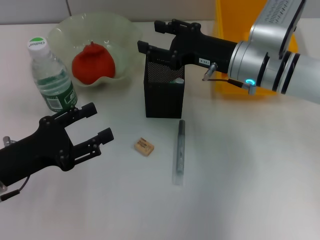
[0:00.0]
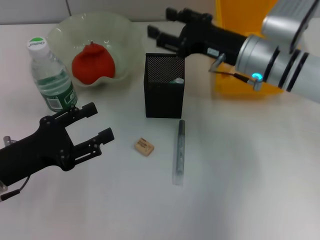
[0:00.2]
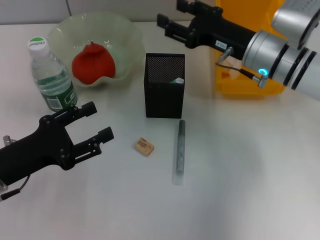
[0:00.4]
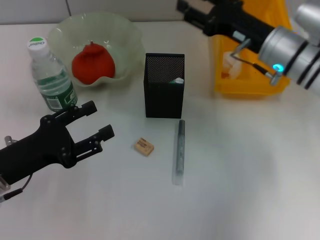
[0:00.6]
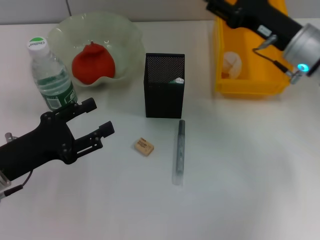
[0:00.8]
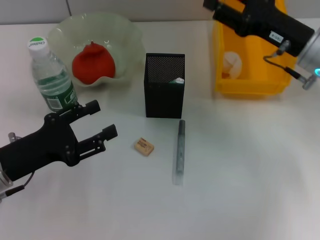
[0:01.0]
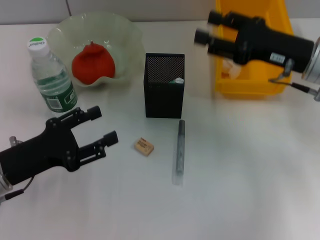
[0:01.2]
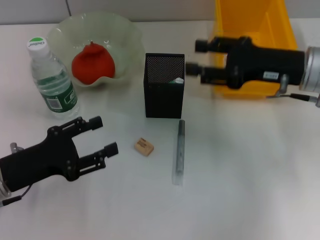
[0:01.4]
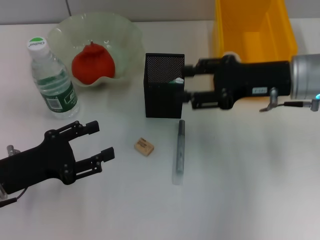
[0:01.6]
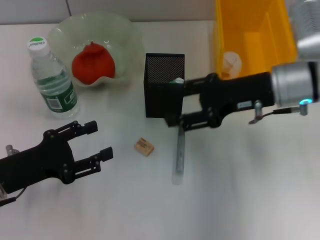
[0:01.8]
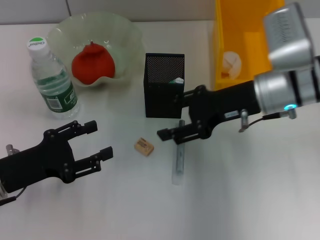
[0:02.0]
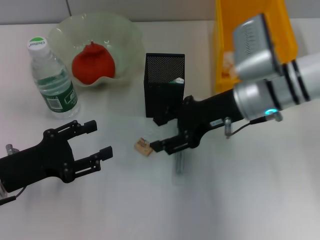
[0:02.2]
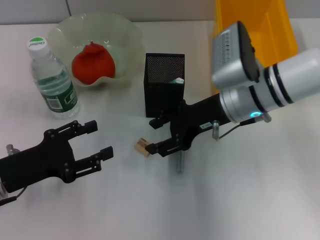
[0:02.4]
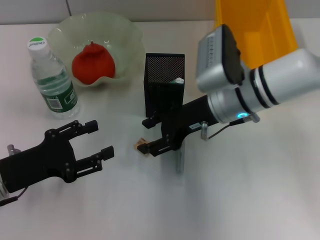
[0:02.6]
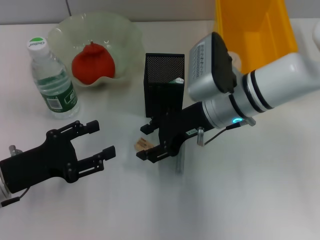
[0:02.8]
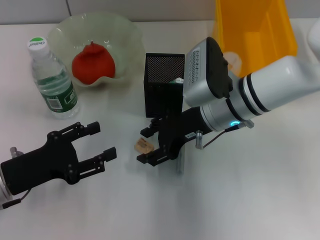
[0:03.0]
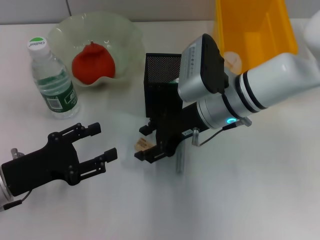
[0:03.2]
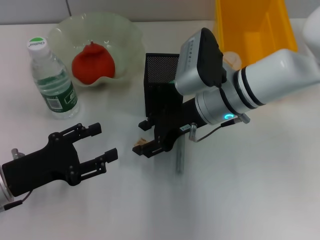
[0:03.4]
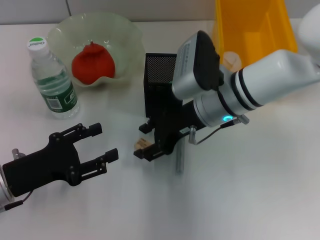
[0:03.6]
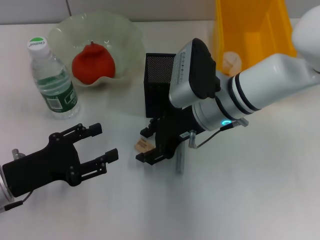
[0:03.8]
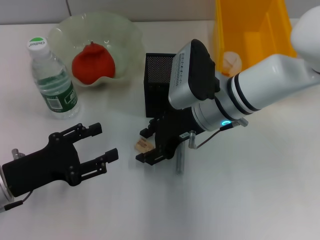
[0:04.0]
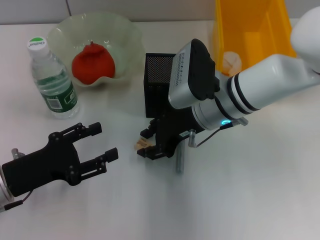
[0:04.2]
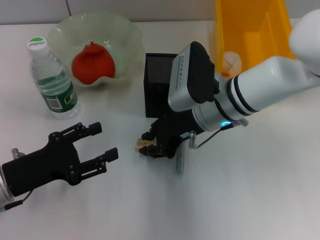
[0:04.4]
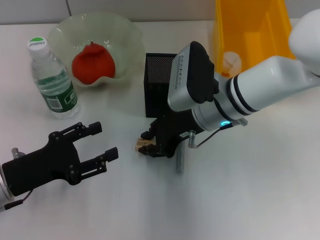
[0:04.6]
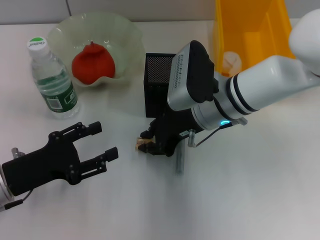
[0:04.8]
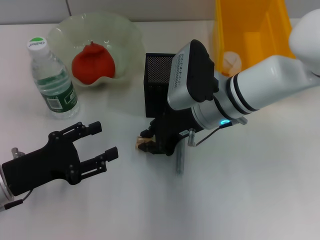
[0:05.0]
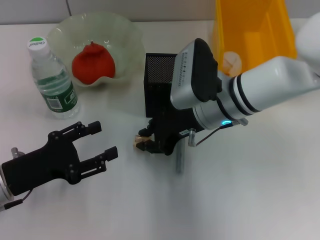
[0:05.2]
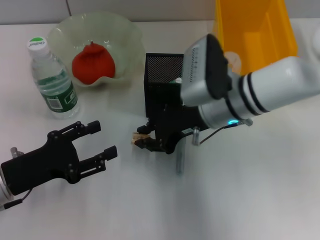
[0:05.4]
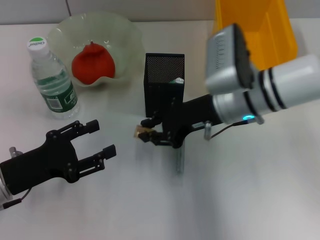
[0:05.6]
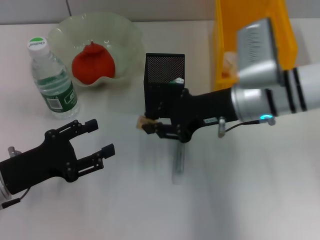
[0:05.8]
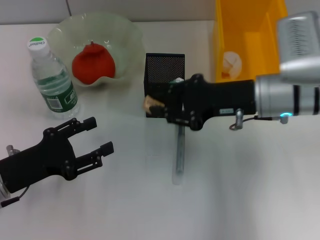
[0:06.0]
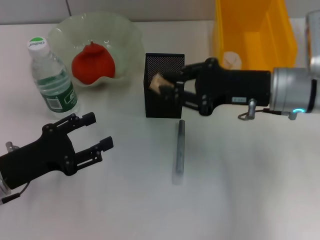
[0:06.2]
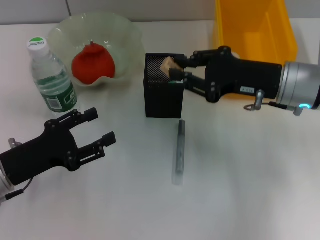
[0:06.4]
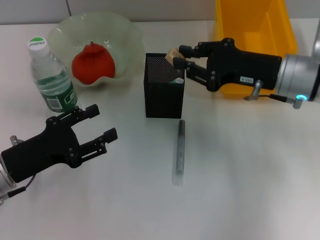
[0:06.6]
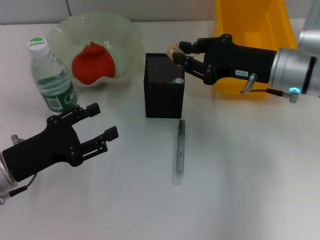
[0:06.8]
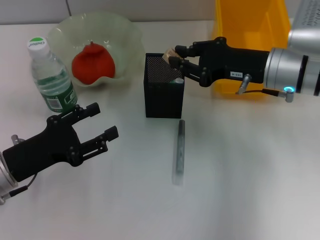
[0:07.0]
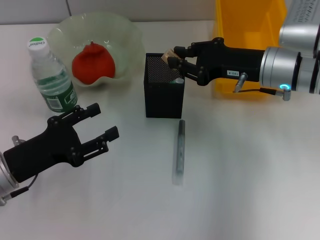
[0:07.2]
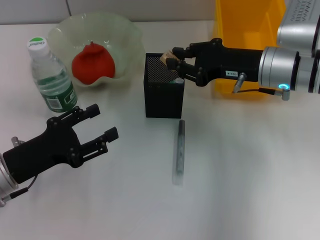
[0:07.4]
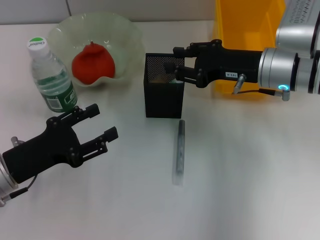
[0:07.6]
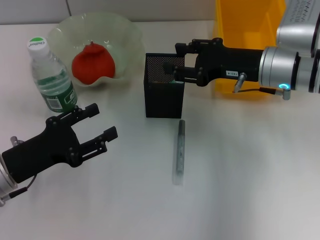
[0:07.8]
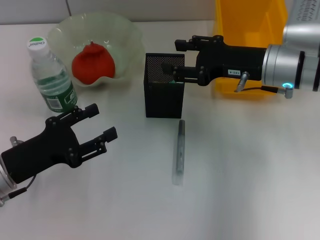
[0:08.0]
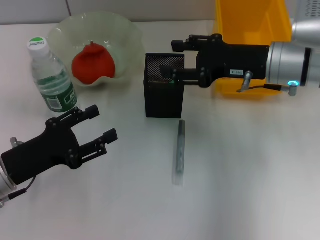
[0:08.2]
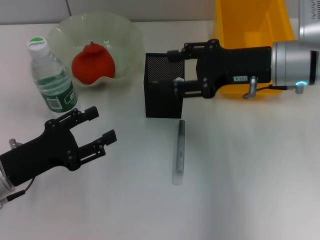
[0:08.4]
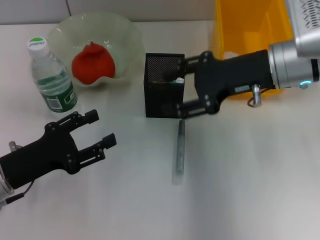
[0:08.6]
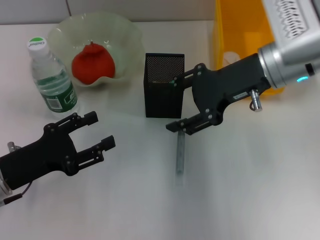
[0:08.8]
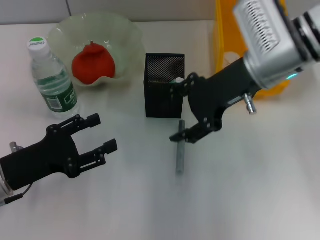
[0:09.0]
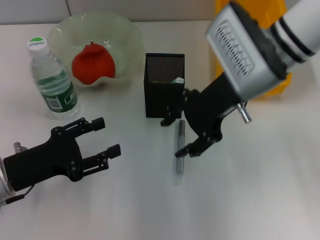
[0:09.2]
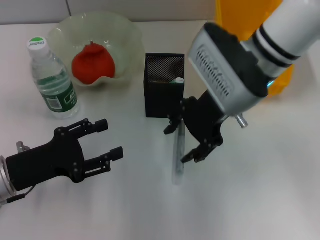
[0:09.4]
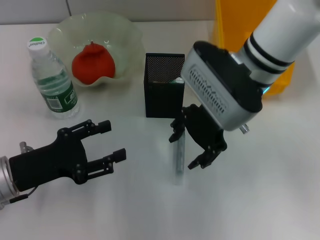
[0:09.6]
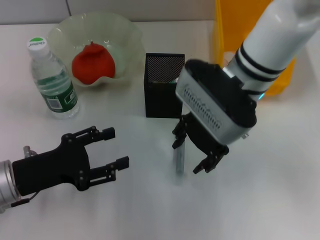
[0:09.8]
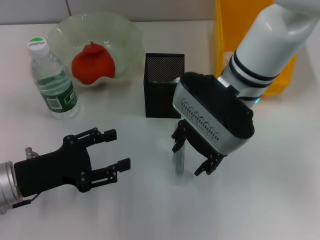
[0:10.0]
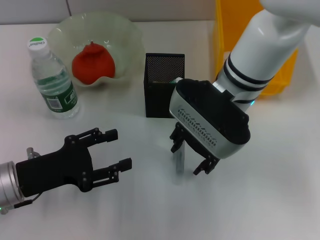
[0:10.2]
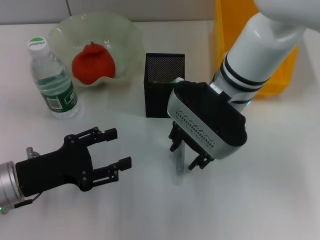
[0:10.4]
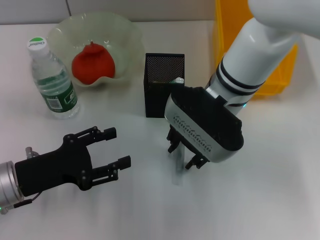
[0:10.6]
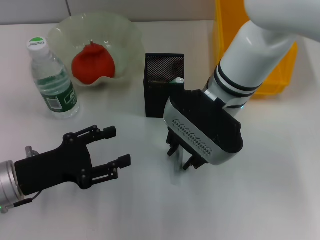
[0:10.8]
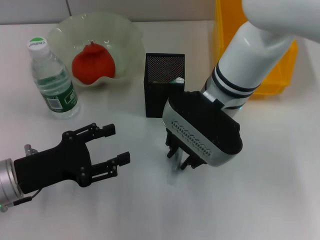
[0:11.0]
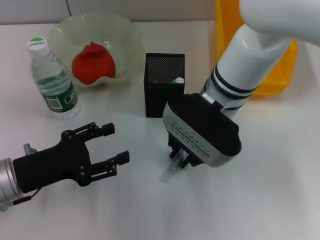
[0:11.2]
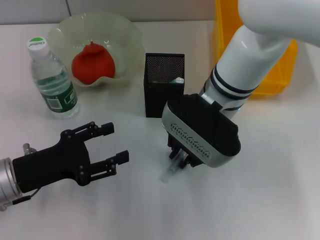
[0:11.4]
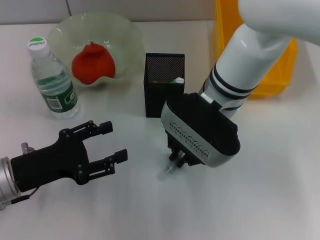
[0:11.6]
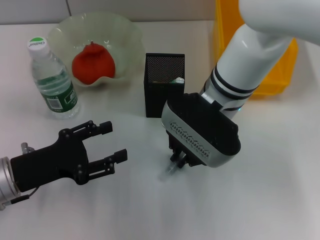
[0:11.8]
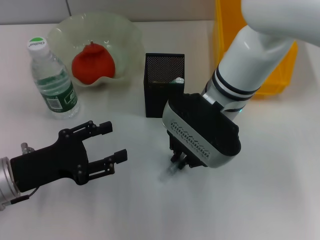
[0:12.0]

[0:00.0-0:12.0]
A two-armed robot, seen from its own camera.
Step, 0:00.0 to 0:04.4: Grab the eraser with the right hand.
Step, 0:04.6 to 0:08.2: Put the eraser into the pen holder with the right hand.
Step, 0:08.4 to 0:11.6: Grab the gray glue with the right hand.
0:00.0 to 0:01.6: The right gripper is displaced to the right by about 5 cm.
0:01.6 to 0:03.0: The right gripper goes about 10 cm to the left.
0:03.0 to 0:04.4: The grippers move only a little.
0:04.4 to 0:06.0: The right gripper travels to the right by approximately 10 cm.
0:06.0 to 0:07.6: The grippers move only a little.
0:07.6 to 0:09.0: The right gripper travels upward by about 5 cm, and opens its fingers.
0:09.0 to 0:10.4: The right gripper goes approximately 5 cm to the left.
0:10.4 to 0:12.0: The right gripper closes up.

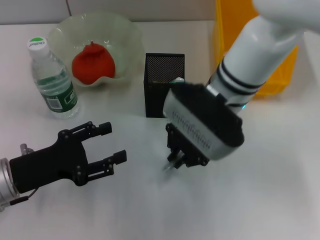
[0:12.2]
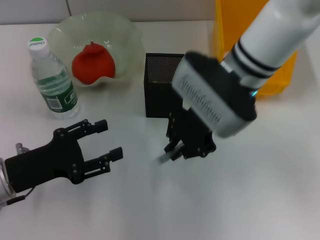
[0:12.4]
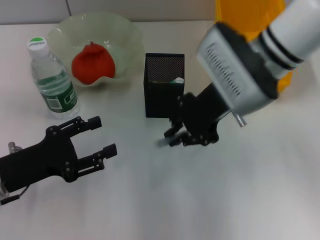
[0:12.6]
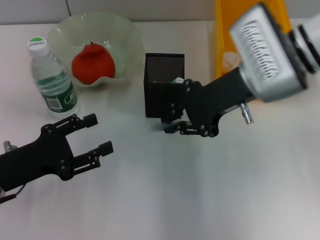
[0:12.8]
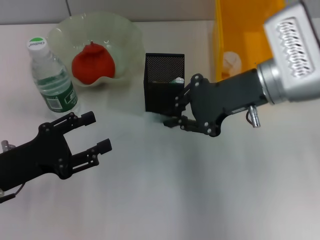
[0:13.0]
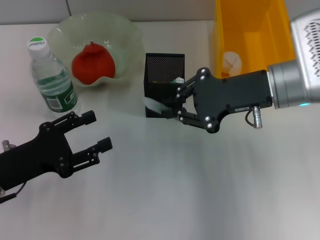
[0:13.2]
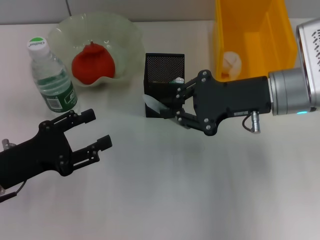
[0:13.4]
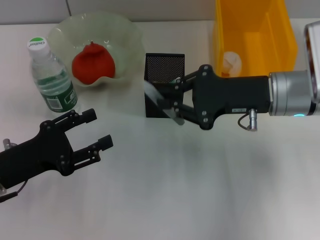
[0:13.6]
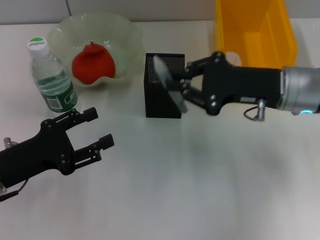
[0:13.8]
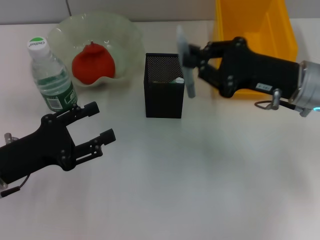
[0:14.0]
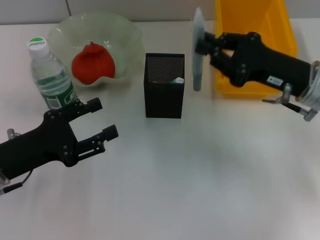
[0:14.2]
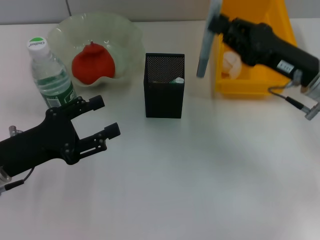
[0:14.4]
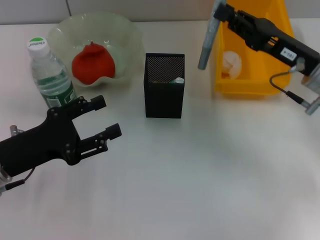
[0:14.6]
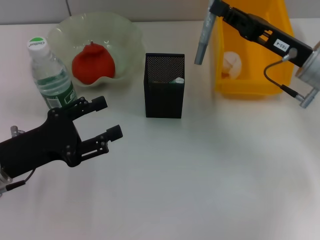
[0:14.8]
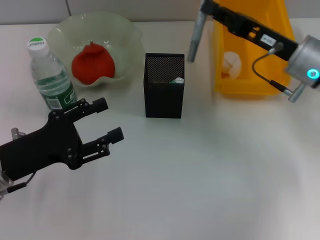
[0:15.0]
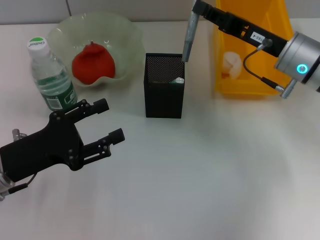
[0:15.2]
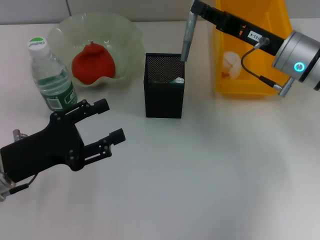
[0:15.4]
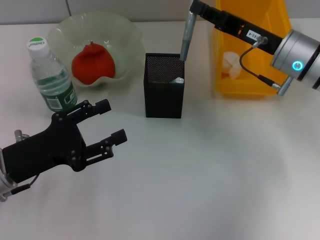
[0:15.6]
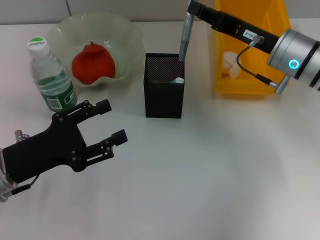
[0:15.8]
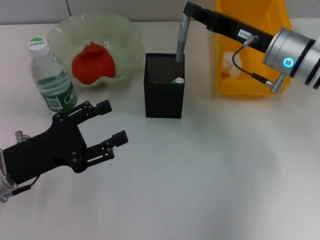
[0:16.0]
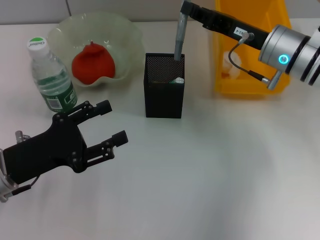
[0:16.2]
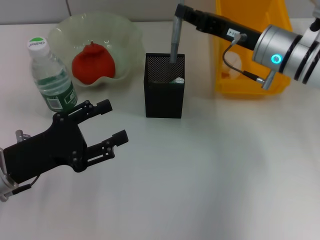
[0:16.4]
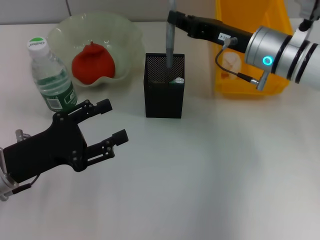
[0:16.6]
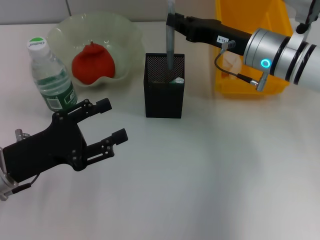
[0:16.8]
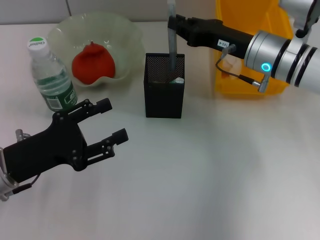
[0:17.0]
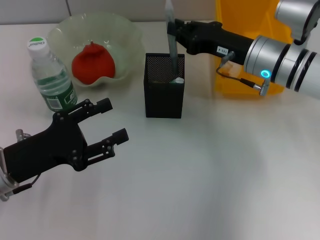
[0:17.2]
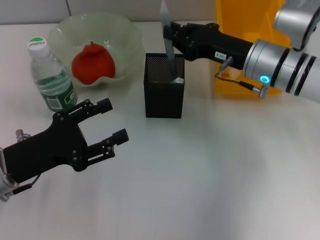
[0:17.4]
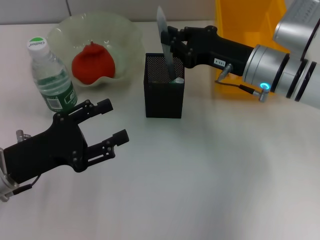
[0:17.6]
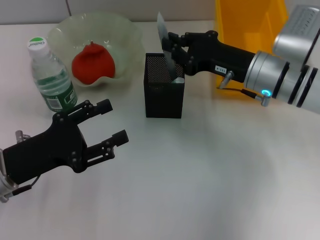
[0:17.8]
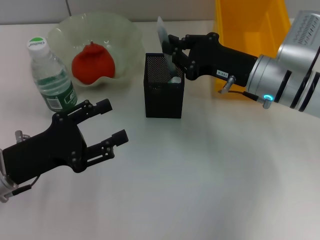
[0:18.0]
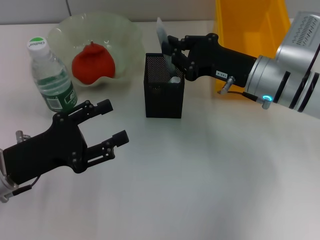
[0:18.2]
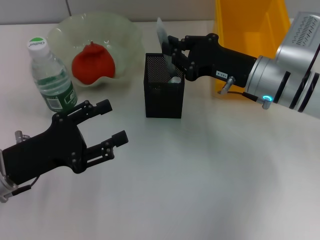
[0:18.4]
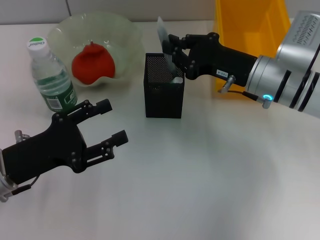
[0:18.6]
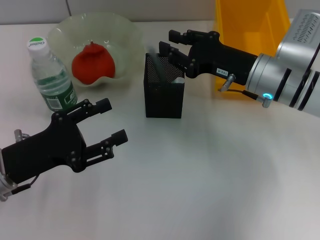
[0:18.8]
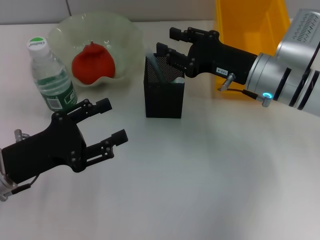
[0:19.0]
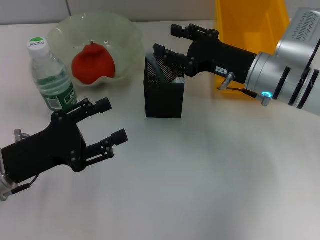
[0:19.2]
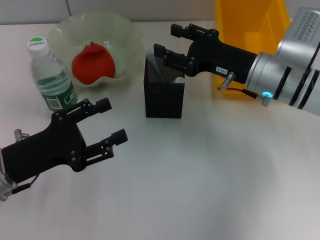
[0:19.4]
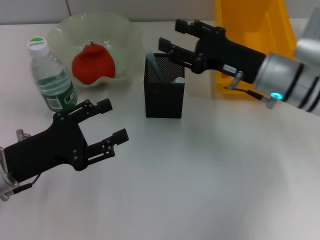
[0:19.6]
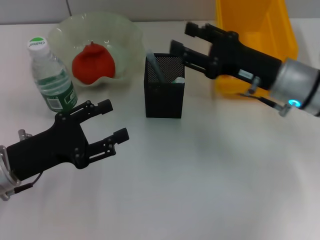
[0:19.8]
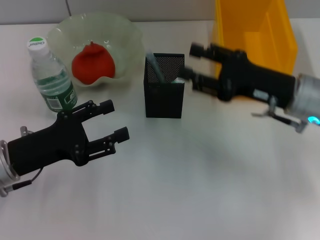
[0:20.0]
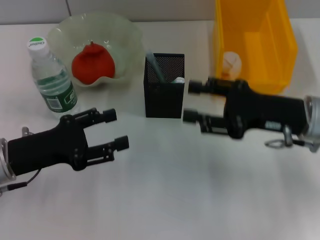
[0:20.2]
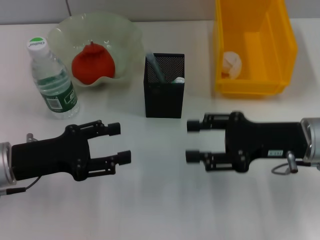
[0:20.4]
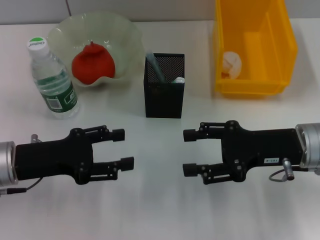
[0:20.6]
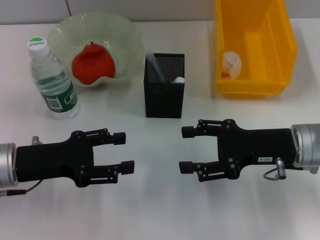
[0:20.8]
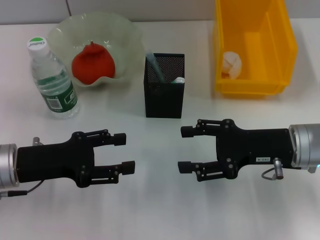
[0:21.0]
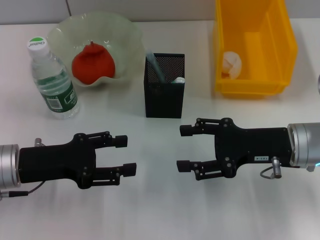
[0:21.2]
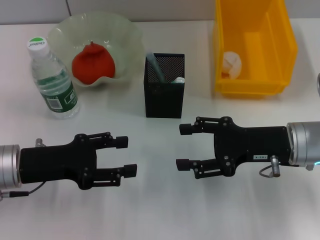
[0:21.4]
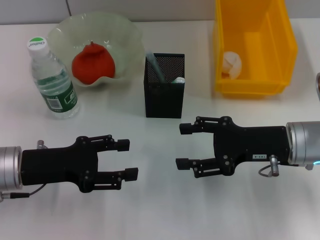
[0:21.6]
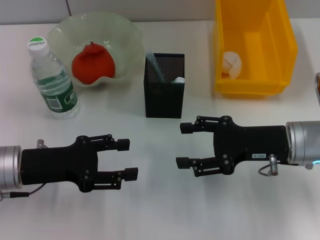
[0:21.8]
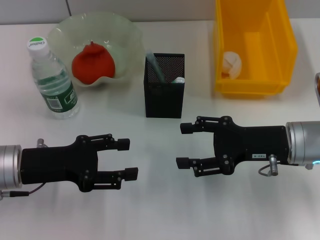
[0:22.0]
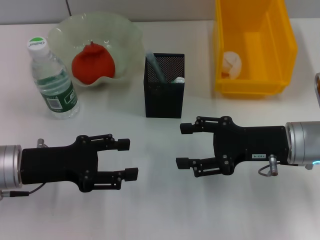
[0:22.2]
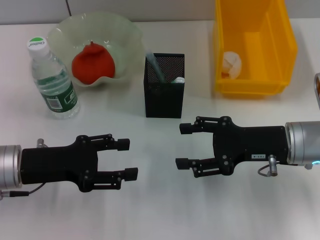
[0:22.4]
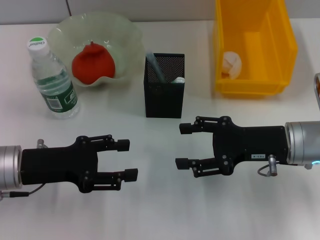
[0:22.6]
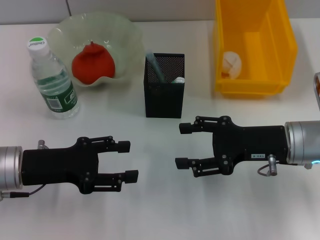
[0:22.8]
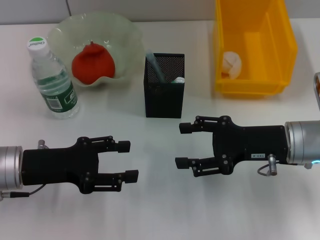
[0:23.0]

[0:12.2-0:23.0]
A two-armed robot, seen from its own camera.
Step, 0:12.2 to 0:18.8: Place the gray glue into the pen holder with the right hand.
0:12.2 to 0:13.8: The right gripper heads to the right, covering some 15 cm.
0:15.2 to 0:16.8: The grippers stay close to where they were, moving slightly.
0:18.4 to 0:20.0: The right gripper changes place by roughly 5 cm, and opens its fingers.
0:21.4 to 0:23.0: Neither gripper changes place.
